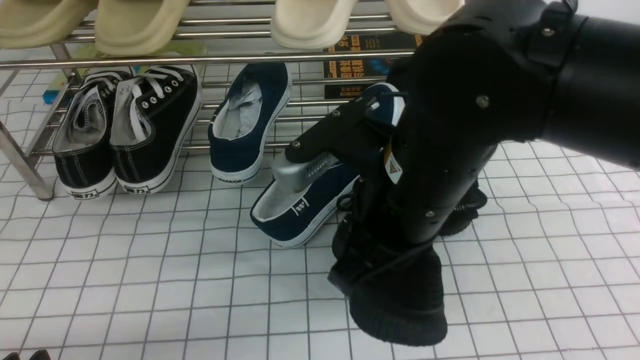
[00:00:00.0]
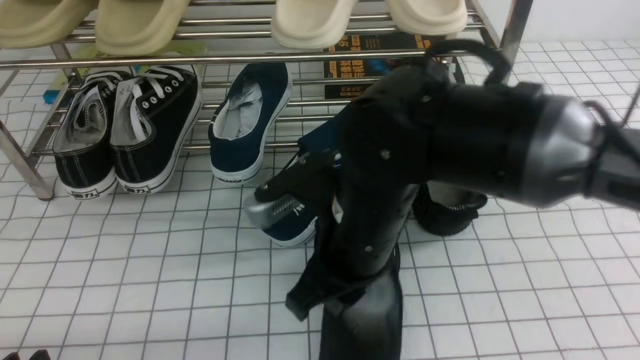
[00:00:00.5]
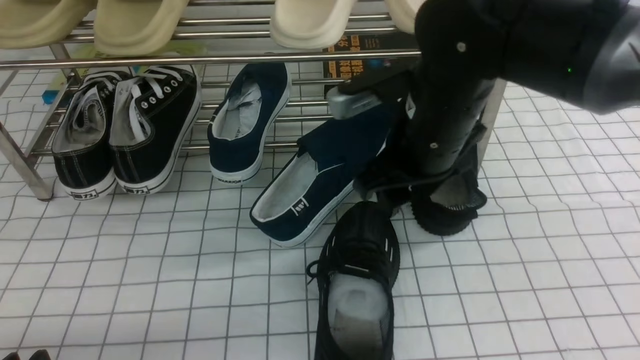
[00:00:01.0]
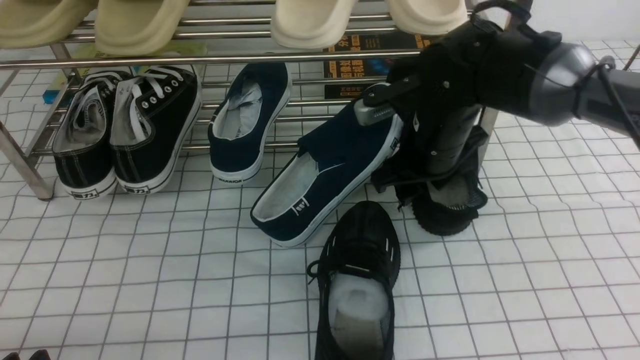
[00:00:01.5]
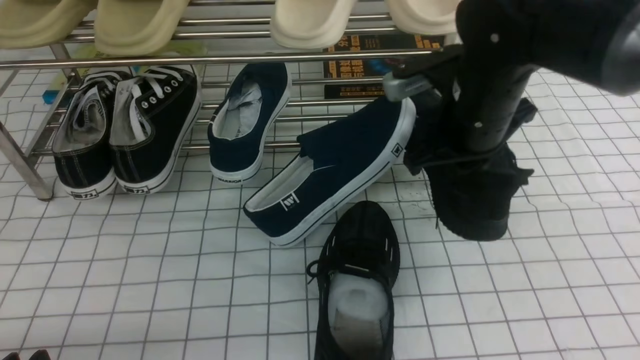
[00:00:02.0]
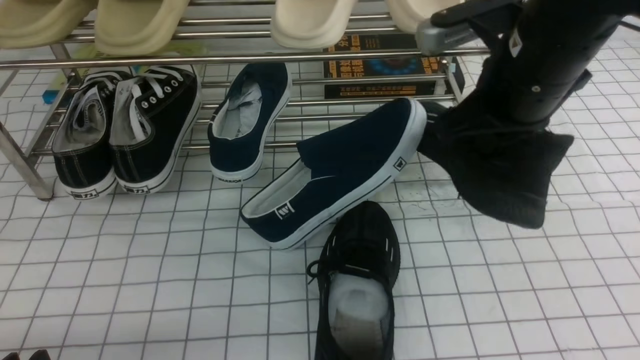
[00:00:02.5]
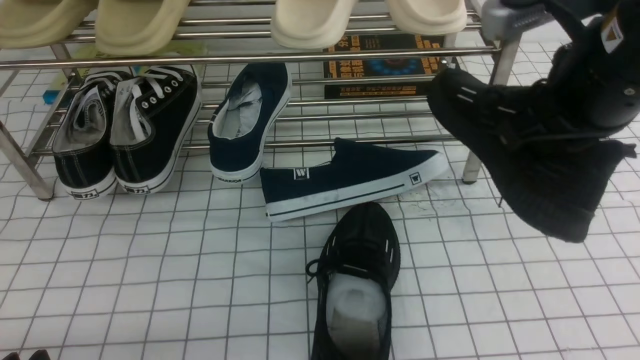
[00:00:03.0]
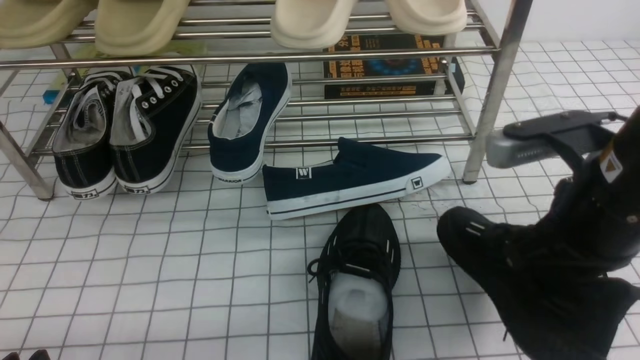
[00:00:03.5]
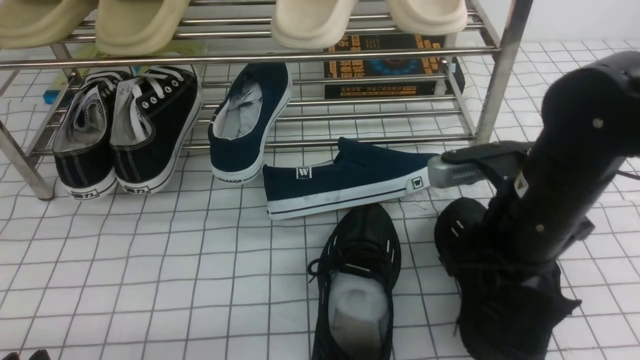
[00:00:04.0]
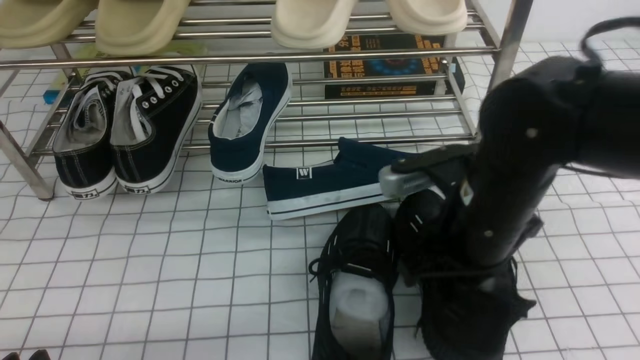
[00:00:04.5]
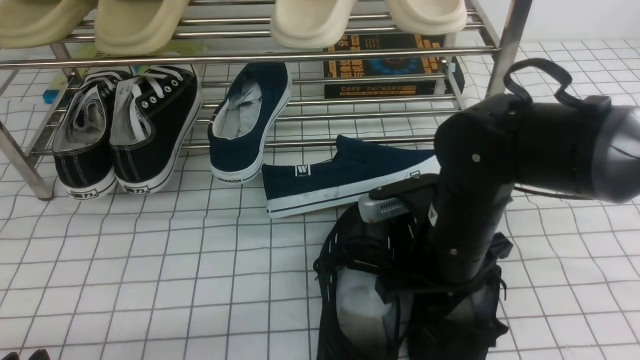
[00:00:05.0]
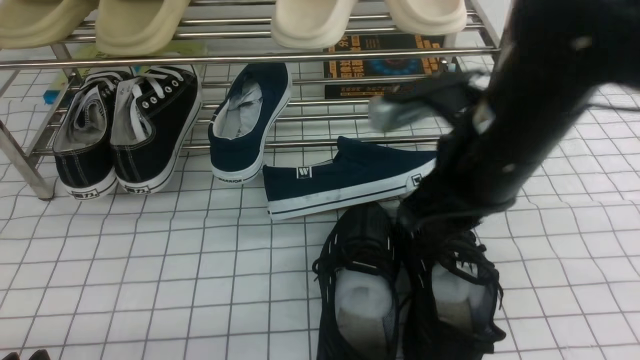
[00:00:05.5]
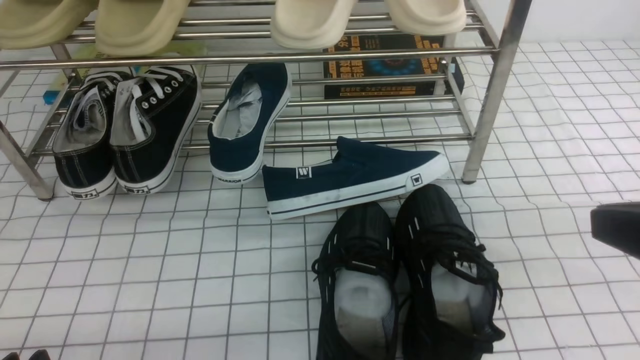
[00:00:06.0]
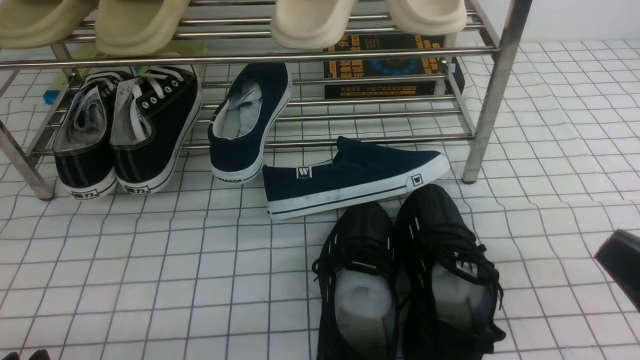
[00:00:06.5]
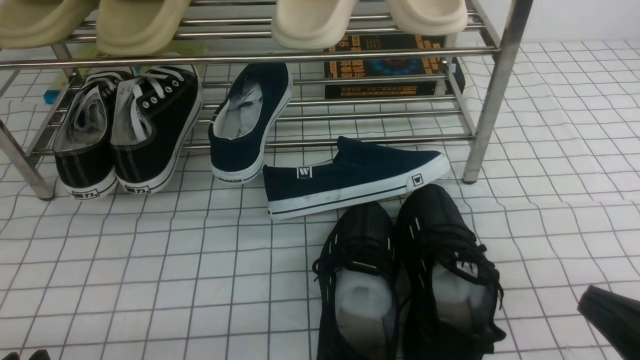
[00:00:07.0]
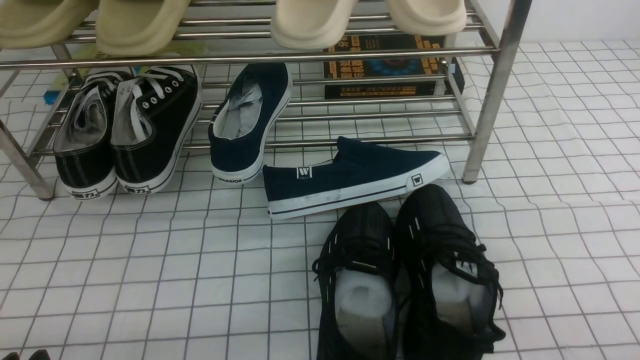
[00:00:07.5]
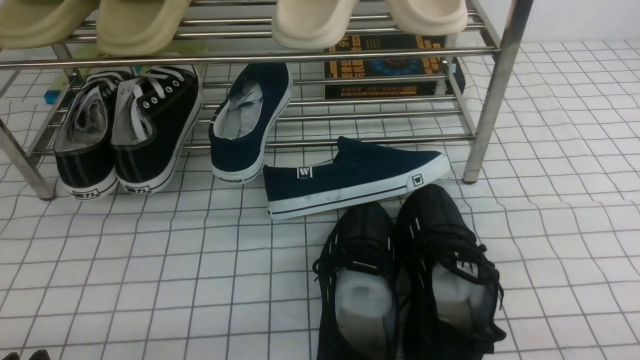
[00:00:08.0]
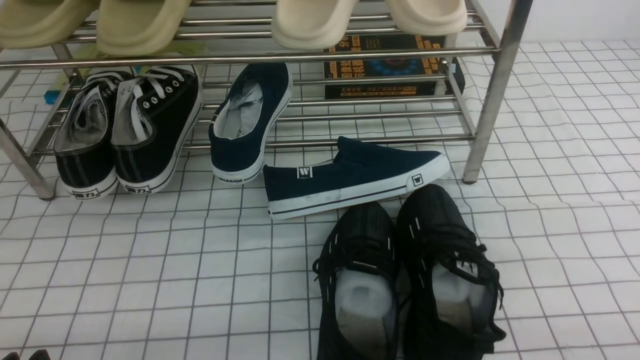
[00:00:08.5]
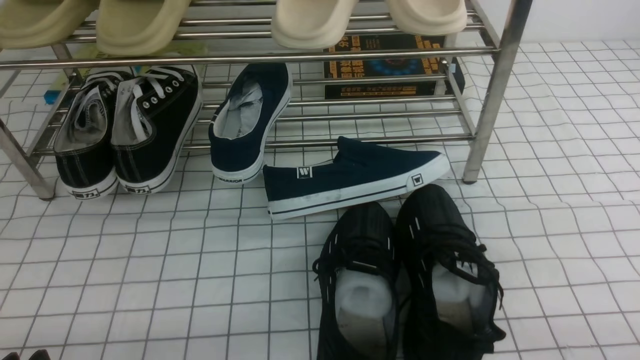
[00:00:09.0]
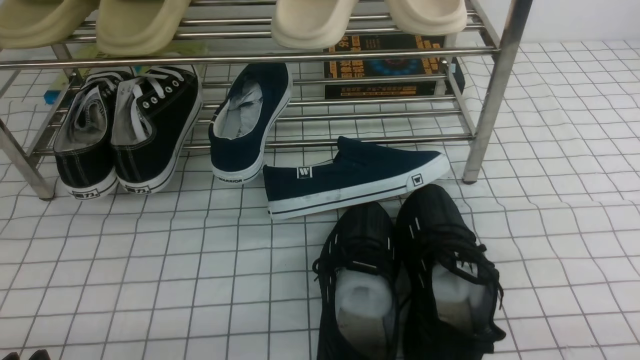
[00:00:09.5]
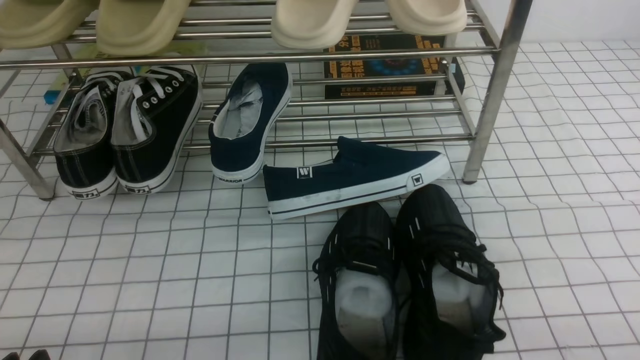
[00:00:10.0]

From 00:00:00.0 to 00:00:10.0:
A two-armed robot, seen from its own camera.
Step, from 00:00:01.0 to 00:00:01.5: use the right arm to clamp a shoe on the right side of the shoe rack.
Step, from 00:00:02.0 to 00:00:05.5: use the right arm to take out the clamped shoe from the shoe rack and put it down.
From 00:00:00.0 to 00:00:02.0: The right gripper moves forward and to the right, about 15 cm, and opens, then closes again.
From 00:00:02.0 to 00:00:04.0: The right gripper heads backward, covering approximately 10 cm.
From 00:00:04.0 to 00:00:06.0: The right gripper goes about 15 cm backward, to the right and upward, and opens, then closes once more.
From 00:00:06.0 to 00:00:08.0: The right gripper heads downward and to the right, covering roughly 20 cm.
From 00:00:08.0 to 00:00:10.0: Both grippers stay put.
